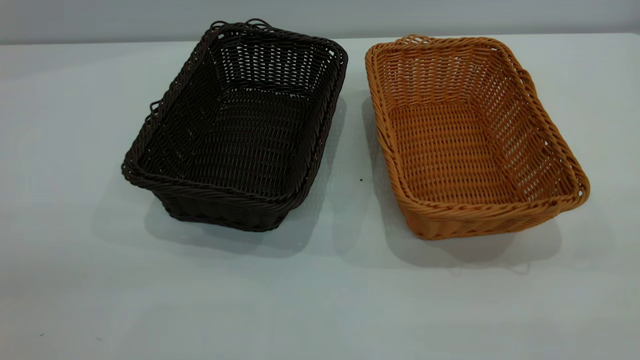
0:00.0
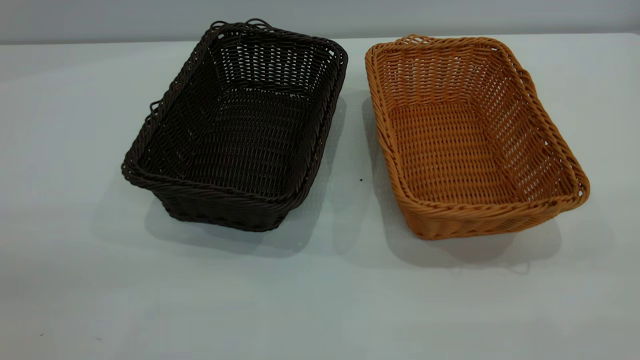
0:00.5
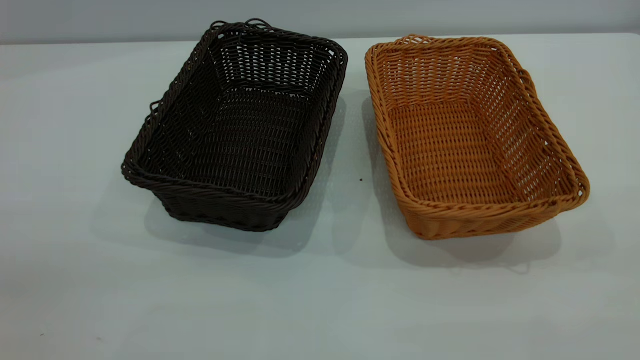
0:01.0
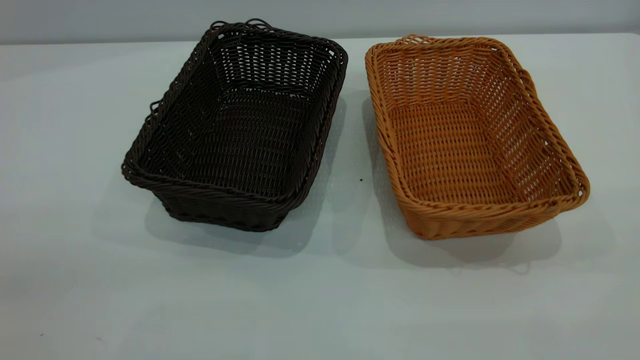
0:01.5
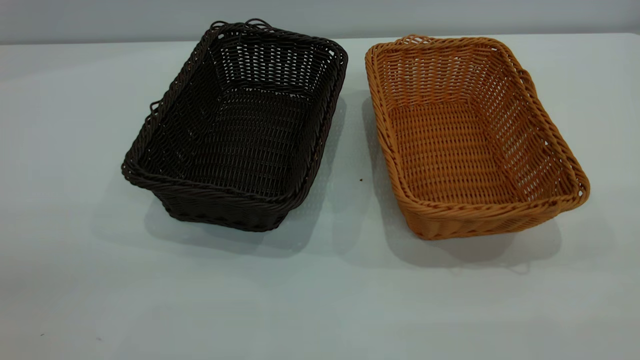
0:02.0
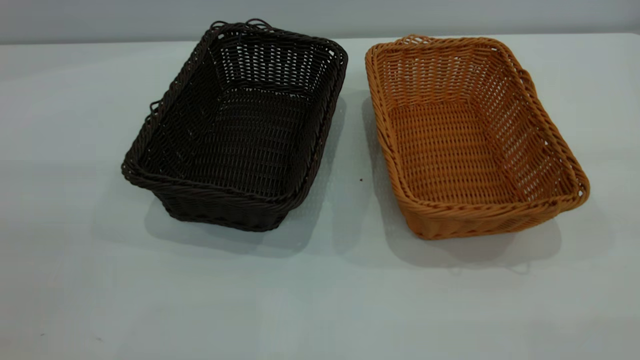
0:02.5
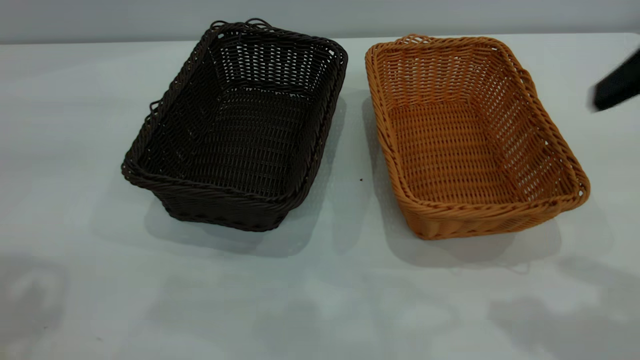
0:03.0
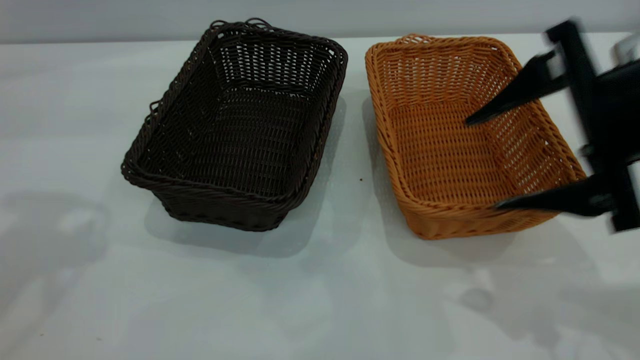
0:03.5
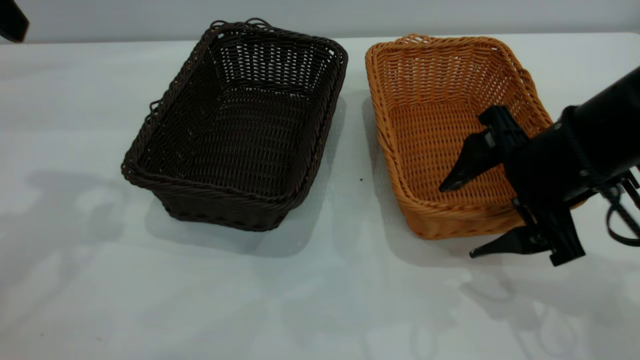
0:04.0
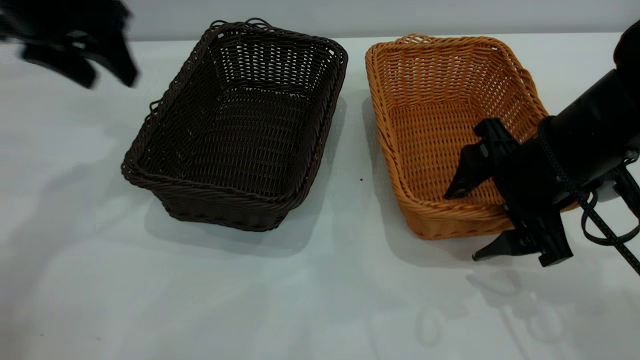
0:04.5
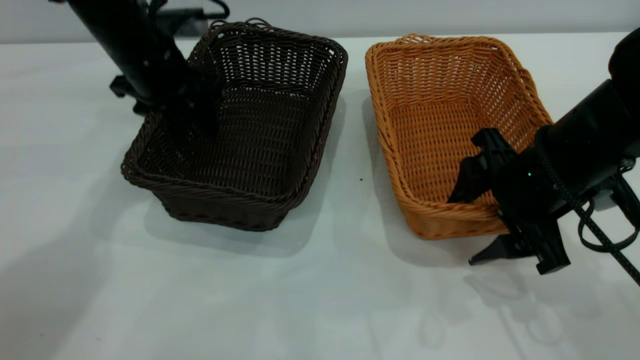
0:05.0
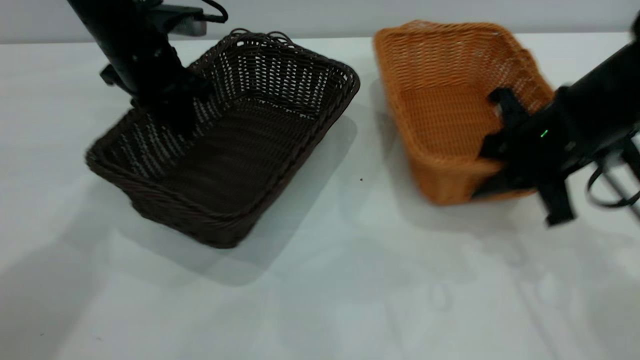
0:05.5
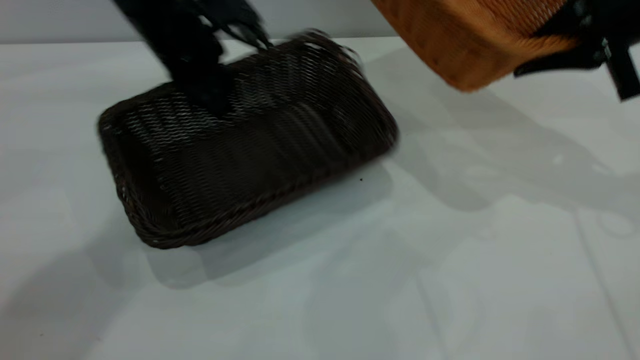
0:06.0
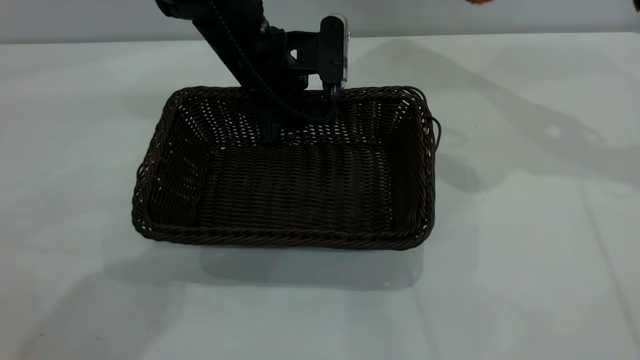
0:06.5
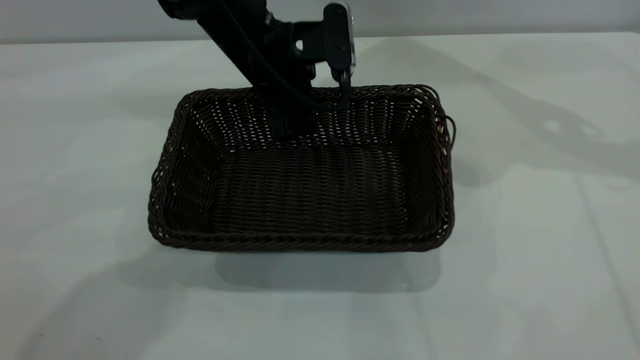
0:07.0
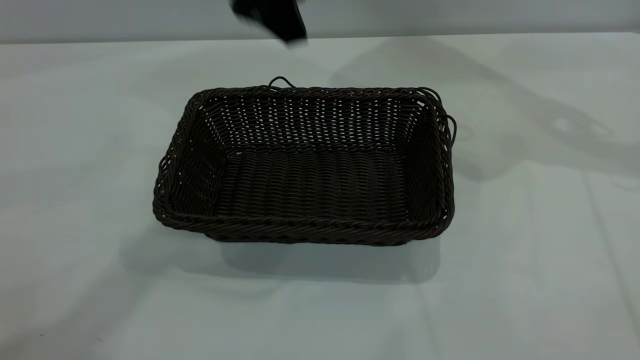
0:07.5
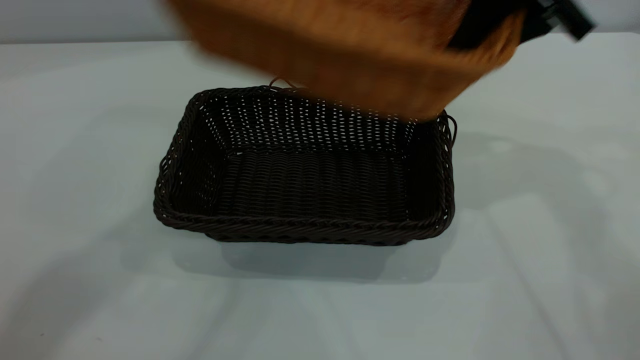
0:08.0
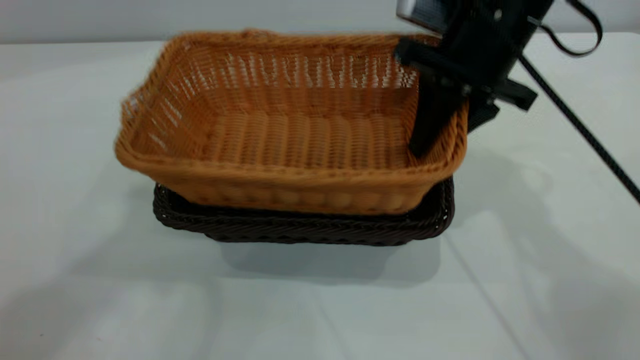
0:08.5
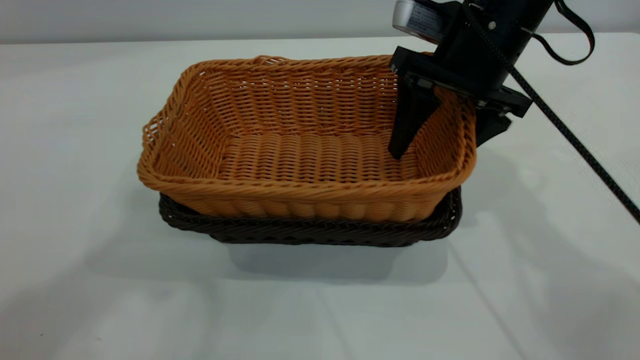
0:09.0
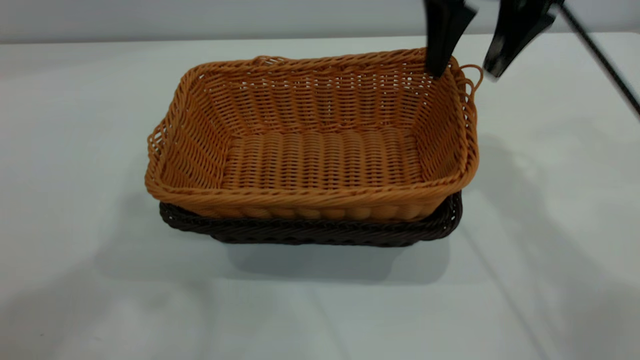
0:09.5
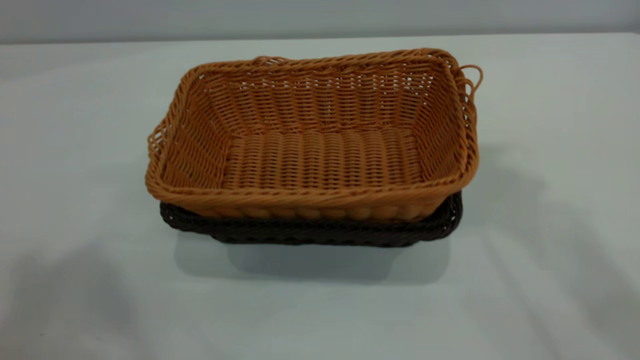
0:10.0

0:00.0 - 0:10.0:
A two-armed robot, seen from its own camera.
Task of the whole recording: the left gripper grasp the black basket and place it in the center of the table, the right gripper grasp the brown basket and place it inside the black one.
Step, 0:00.0 - 0:05.5: Pick up the light basket with the right gripper.
Step, 0:06.0 - 0:07.0: Move the dark basket to the center of view.
Step, 0:07.5 - 0:09.5: Place the light basket on the dark basket.
0:00.0 - 0:02.0: Both grippers stay put.
0:02.0 - 0:04.0: The right gripper is displaced forward and downward by some 35 cm.
0:04.0 - 0:06.0: The left gripper goes some 25 cm downward, to the right and forward, and closes its fingers. Meanwhile the right gripper goes roughly 15 cm forward, to the right and upward, and closes up.
0:06.0 - 0:08.0: The right gripper is displaced to the left by about 10 cm; the left gripper is displaced upward and backward by about 40 cm, and opens.
0:08.0 - 0:10.0: The left gripper heads backward and to the left, covering about 10 cm; the right gripper shifts approximately 25 cm upward, and opens its fingers.

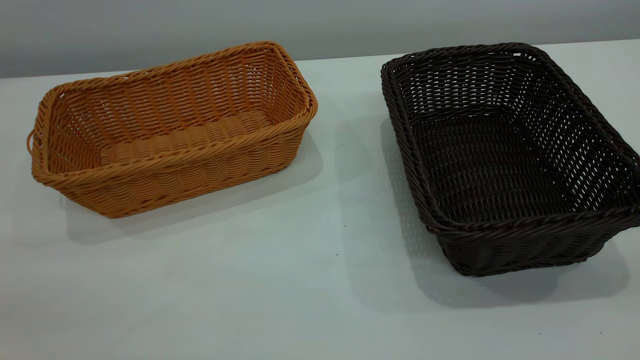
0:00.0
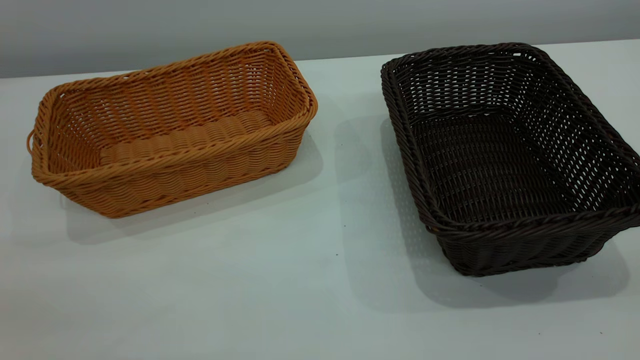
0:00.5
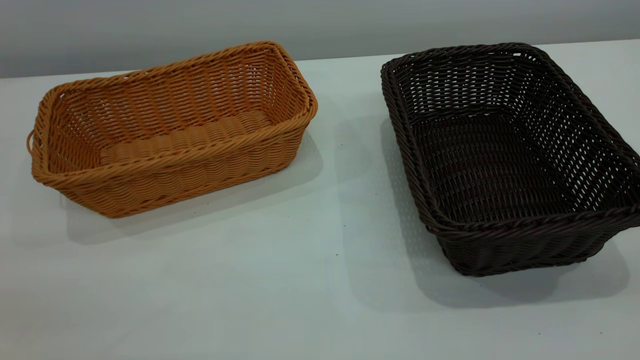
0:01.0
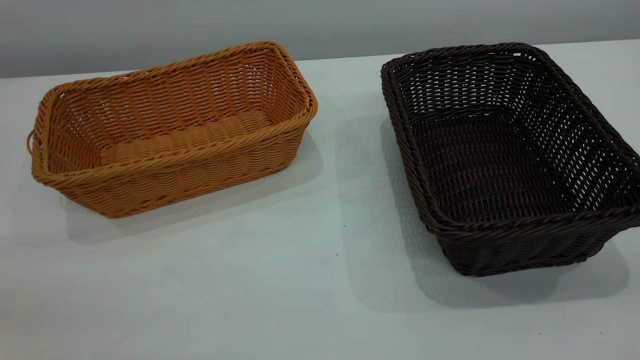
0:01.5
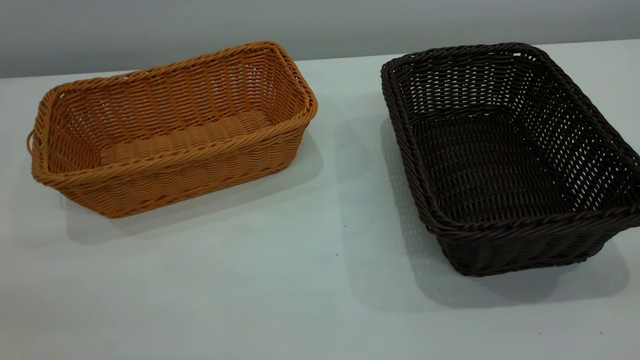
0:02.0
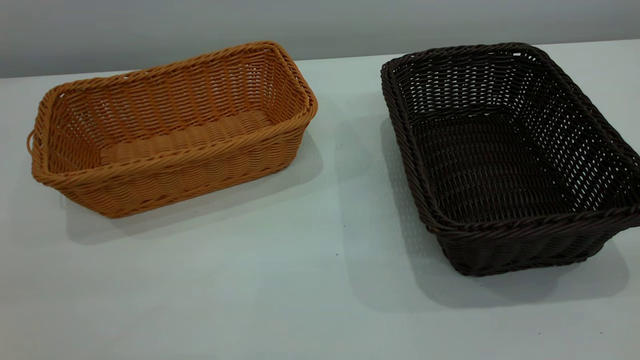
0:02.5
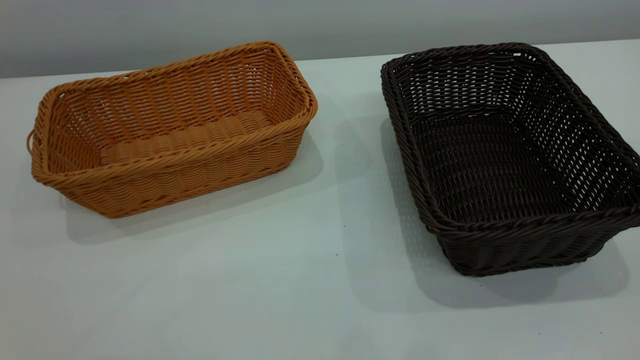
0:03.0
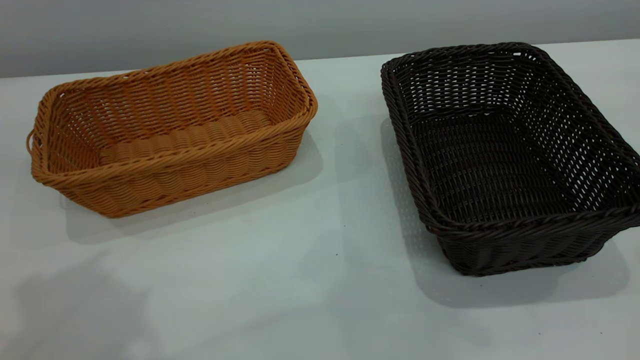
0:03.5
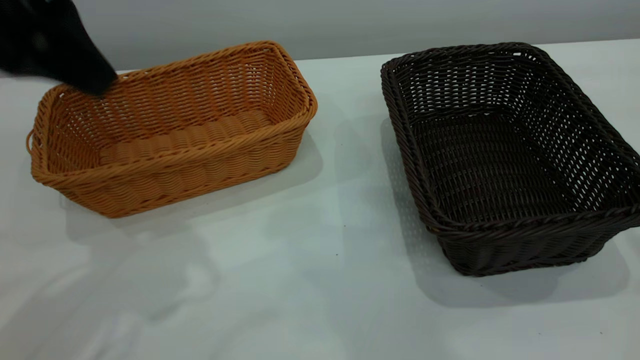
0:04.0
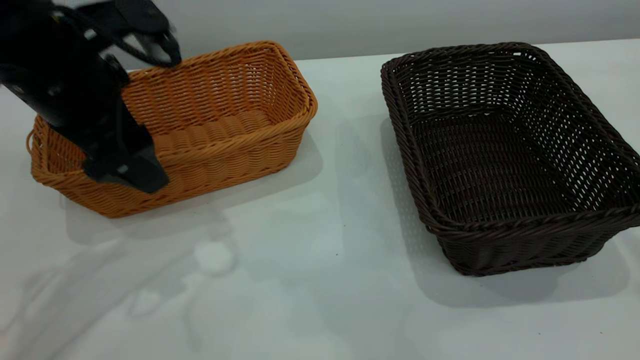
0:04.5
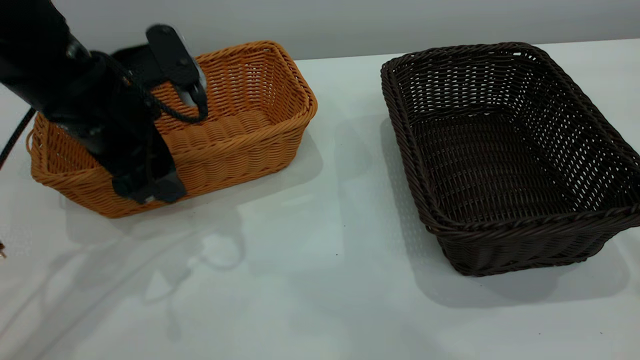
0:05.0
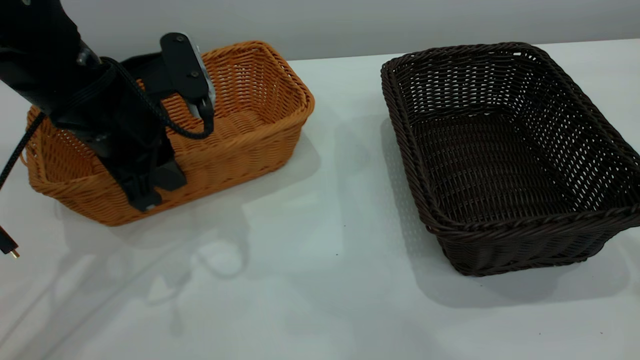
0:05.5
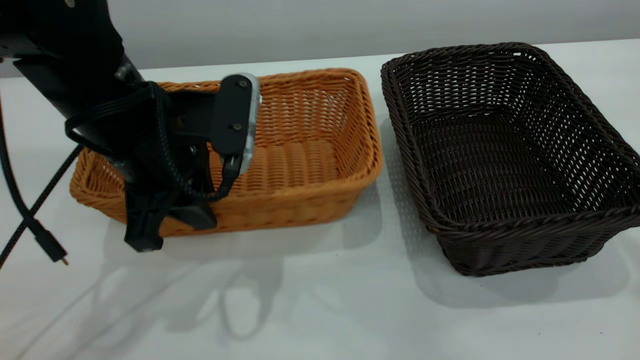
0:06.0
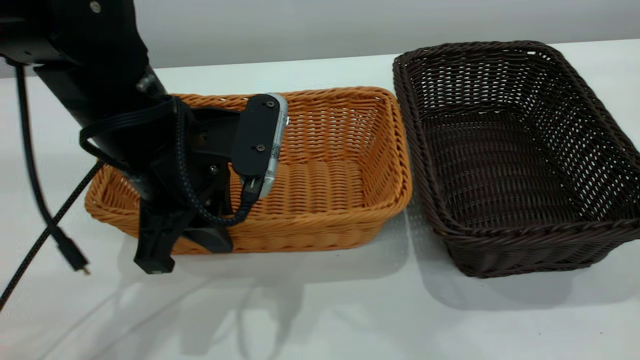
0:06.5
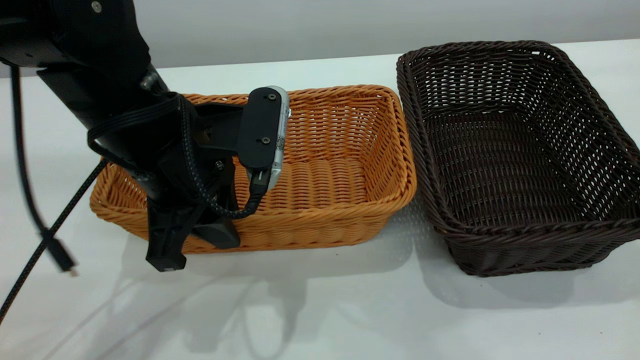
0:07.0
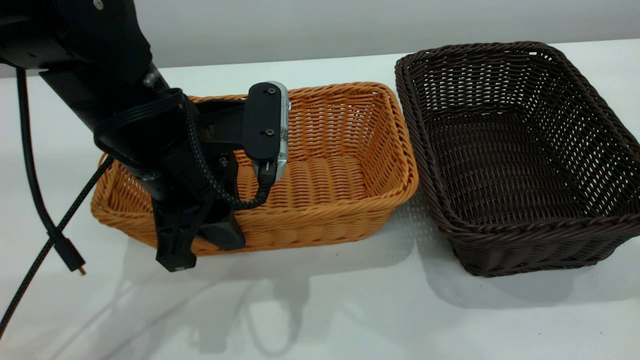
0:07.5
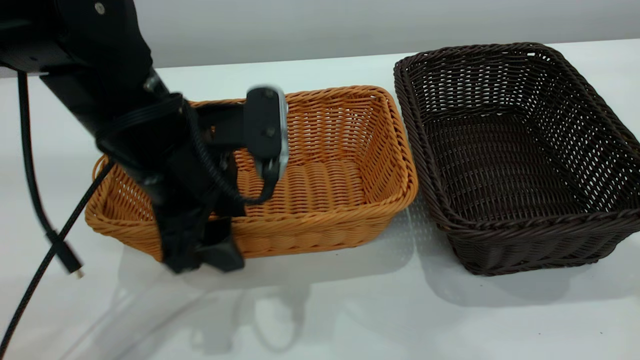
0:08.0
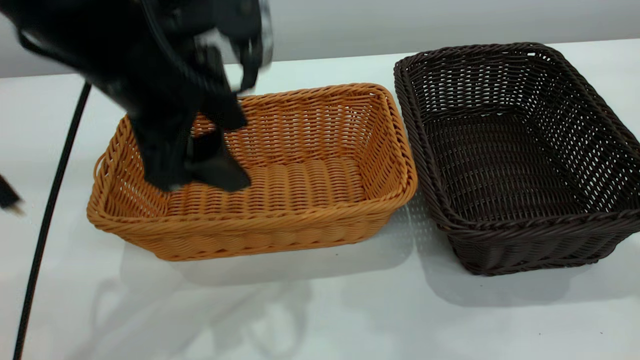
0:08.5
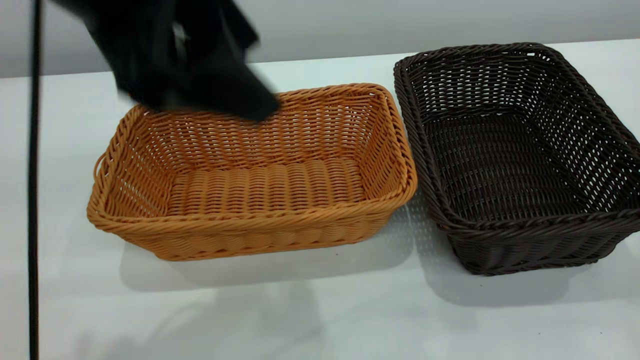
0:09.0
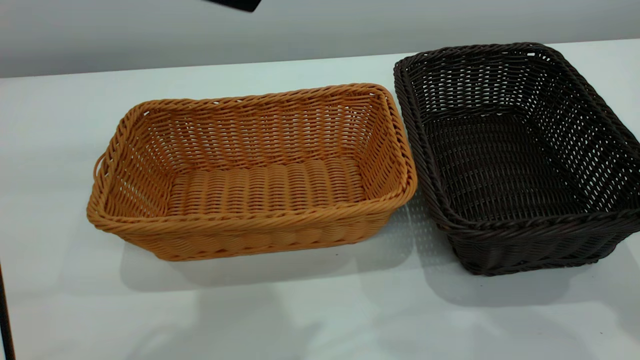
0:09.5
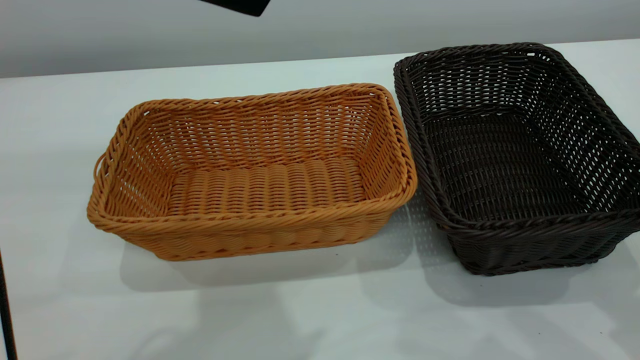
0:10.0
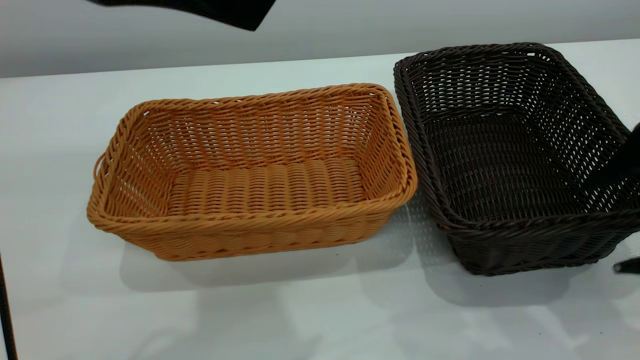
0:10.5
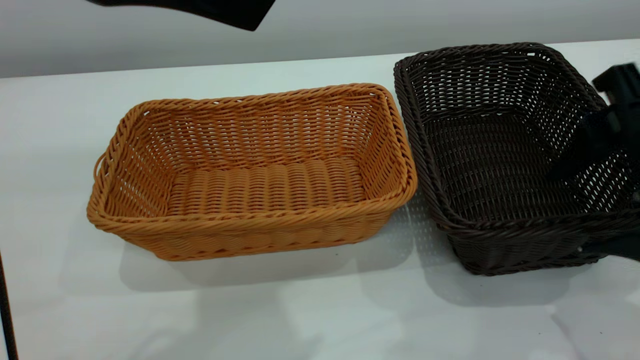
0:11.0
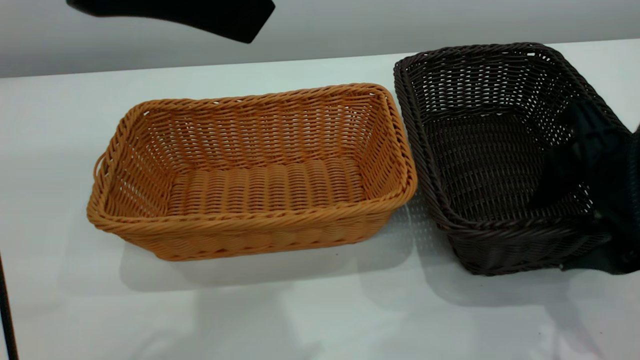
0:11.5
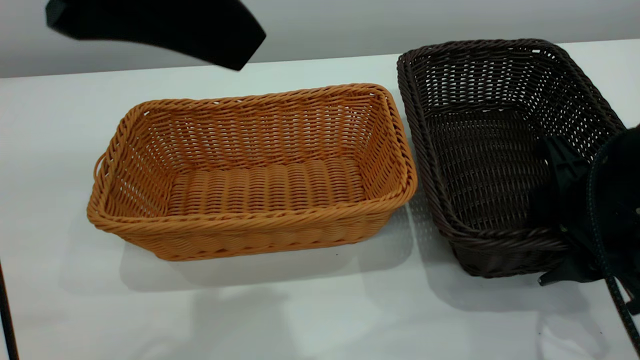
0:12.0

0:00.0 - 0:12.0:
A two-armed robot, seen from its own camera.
Task of the whole recording: the left gripper grasp the brown basket and place it in the center of the table, the right gripper grasp the black basket and place it inside the brown one.
Step, 0:00.0 - 0:08.5: Place the light-colored basket in the center.
0:00.0 - 0:02.0: Neither gripper changes place.
0:02.0 - 0:04.0: The left gripper shifts about 25 cm forward, and opens.
0:04.0 - 0:06.0: The left gripper goes approximately 15 cm downward and to the right, and closes its fingers.
0:06.0 - 0:08.0: The left gripper opens.
0:08.0 - 0:10.0: The right gripper is displaced downward by some 15 cm. The left gripper moves upward and backward, some 20 cm.
0:10.0 - 0:12.0: The right gripper is displaced downward, forward and to the left by about 15 cm, and closes.
